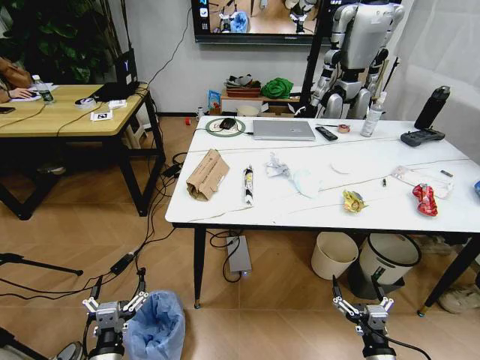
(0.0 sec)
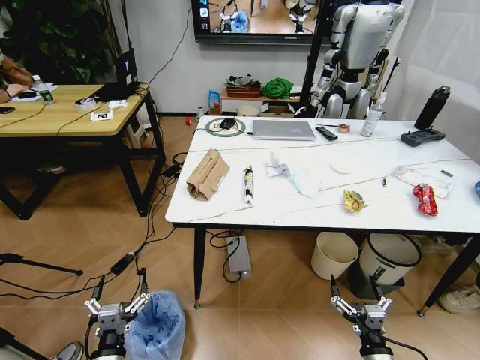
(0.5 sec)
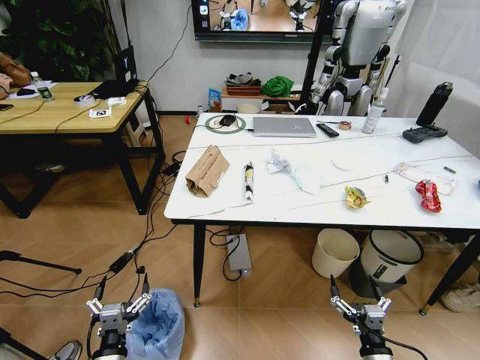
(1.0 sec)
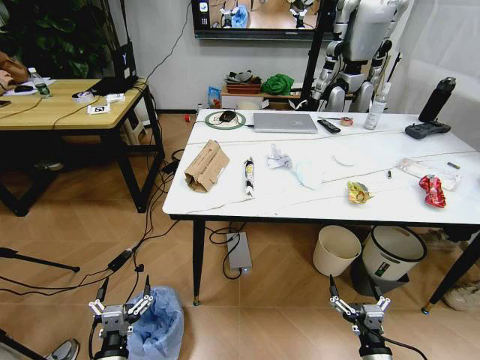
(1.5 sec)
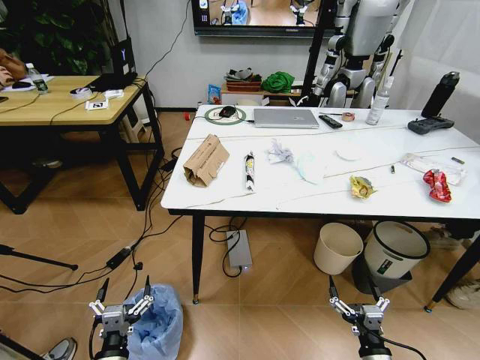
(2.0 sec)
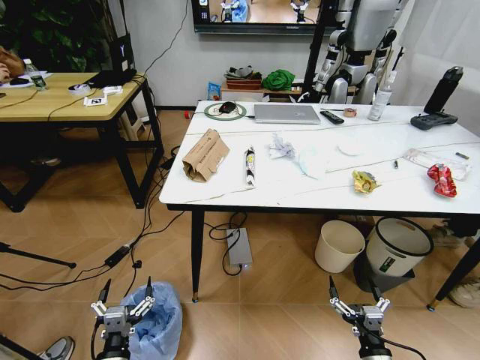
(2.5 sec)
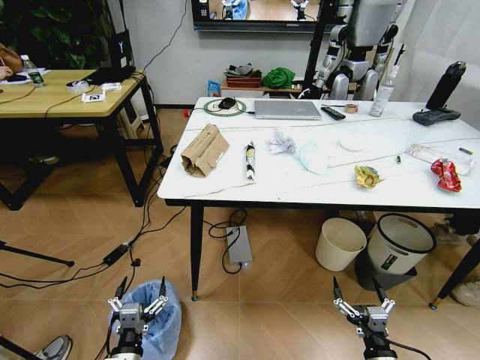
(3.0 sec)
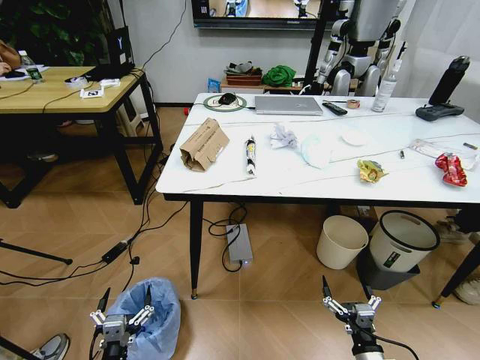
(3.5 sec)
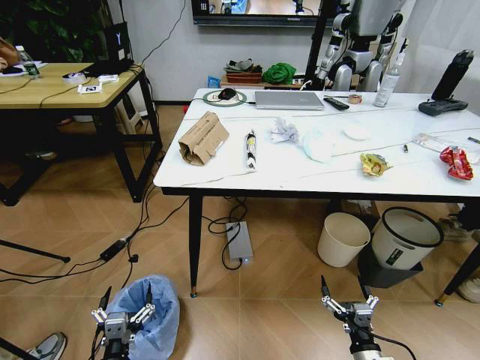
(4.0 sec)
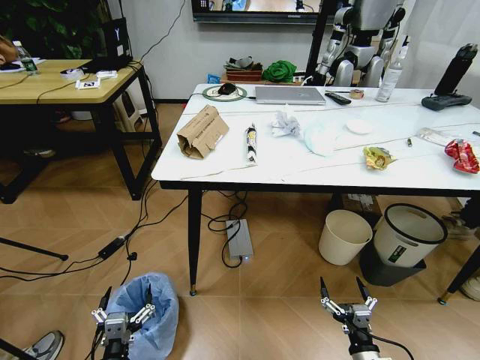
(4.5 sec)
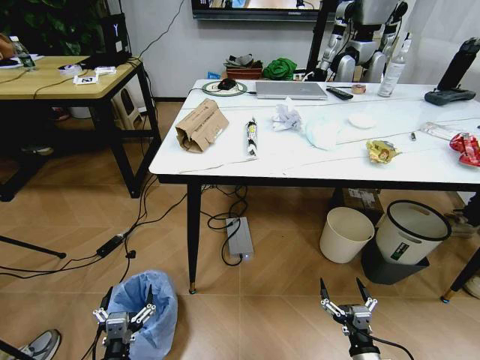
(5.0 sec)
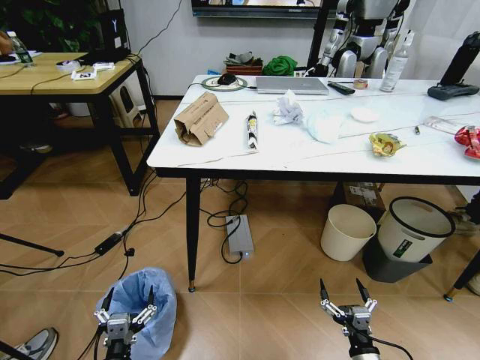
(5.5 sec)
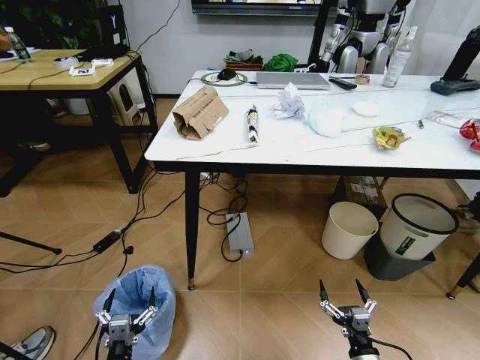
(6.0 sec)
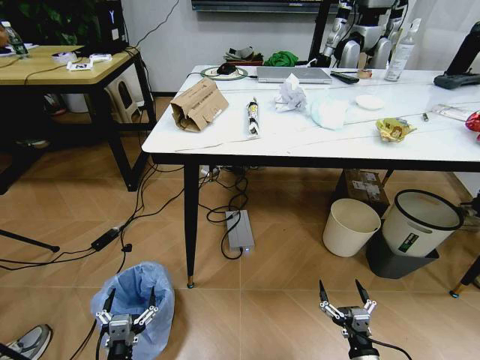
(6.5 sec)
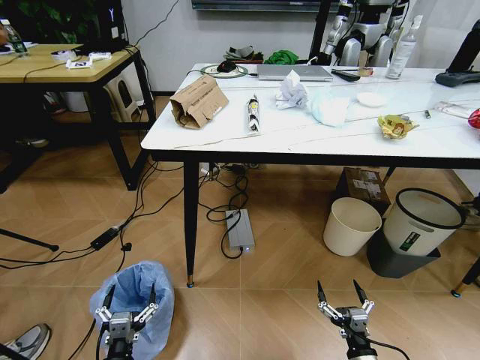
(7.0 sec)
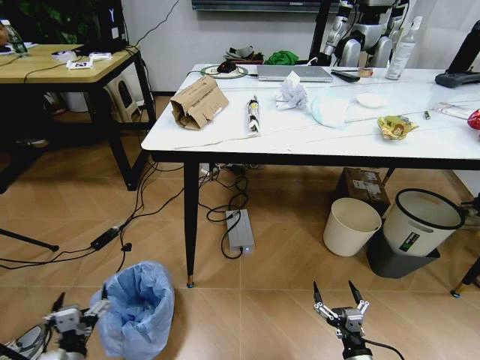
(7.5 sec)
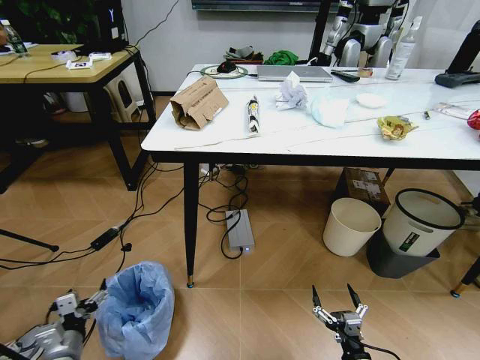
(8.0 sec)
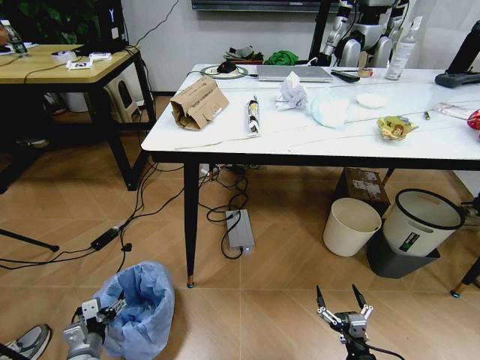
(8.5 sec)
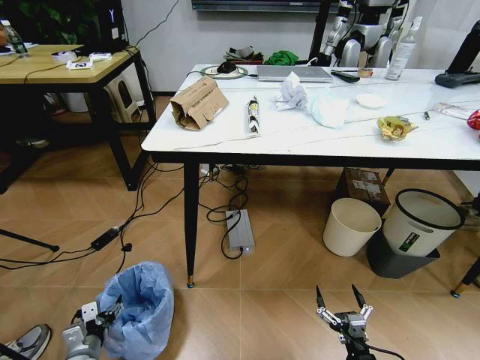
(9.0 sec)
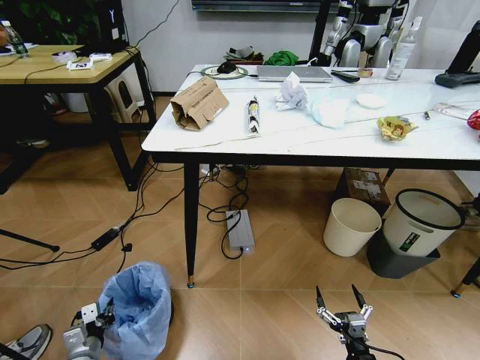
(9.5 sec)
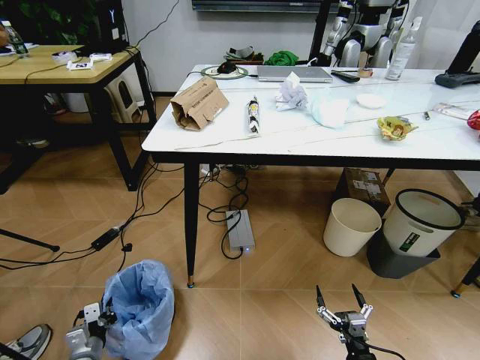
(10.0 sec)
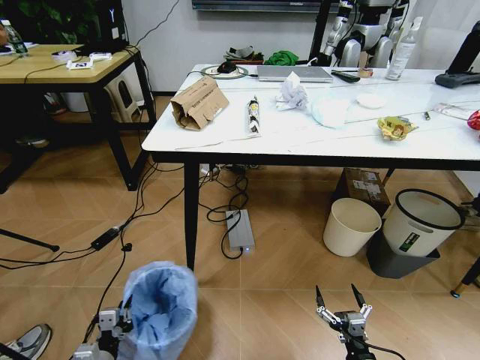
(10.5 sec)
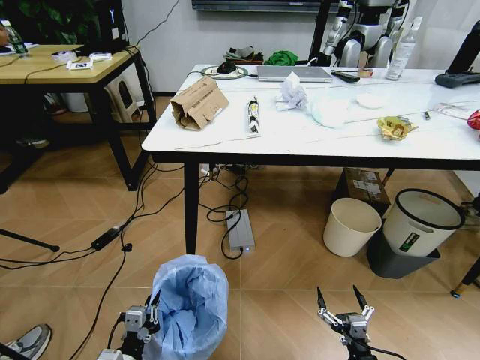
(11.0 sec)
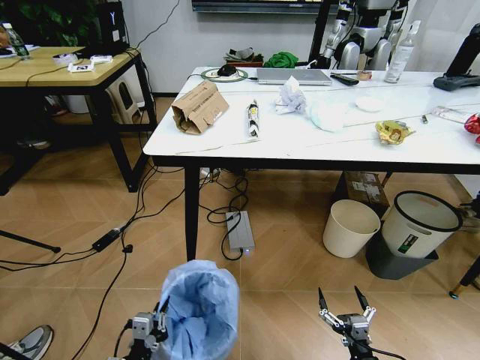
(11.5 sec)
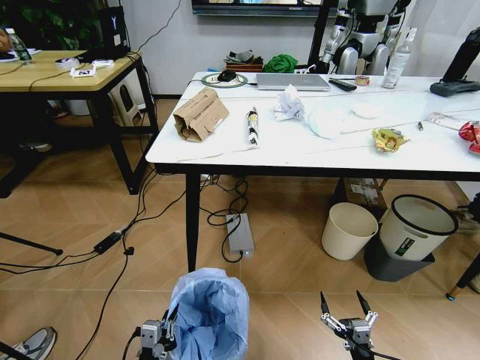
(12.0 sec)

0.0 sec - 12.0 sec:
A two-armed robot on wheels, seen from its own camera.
Task of the whole recording: Pick up the trash bin and place the trash from the table into it.
6.0 sec - 8.0 sec: The left gripper heads to the left and forward, covering about 15 cm.
8.0 sec - 10.0 sec: The left gripper shifts some 5 cm downward, and closes up.
10.0 sec - 12.0 sec: The left gripper heads to the right, backward and upward, covering roughly 20 cm.

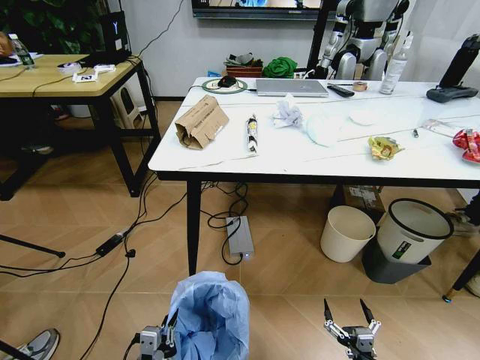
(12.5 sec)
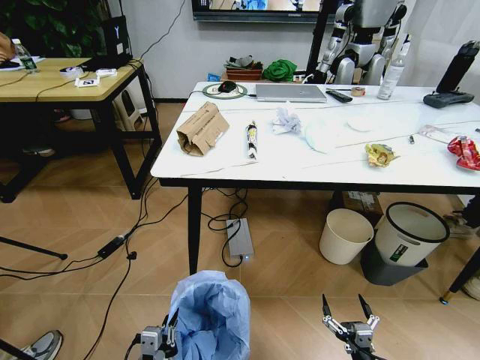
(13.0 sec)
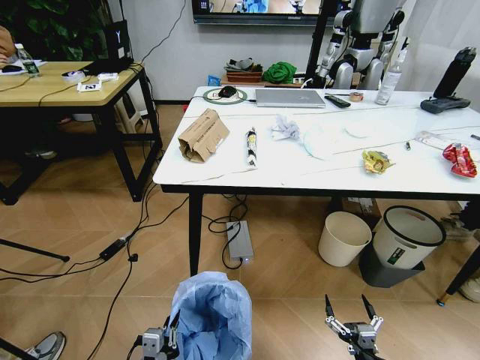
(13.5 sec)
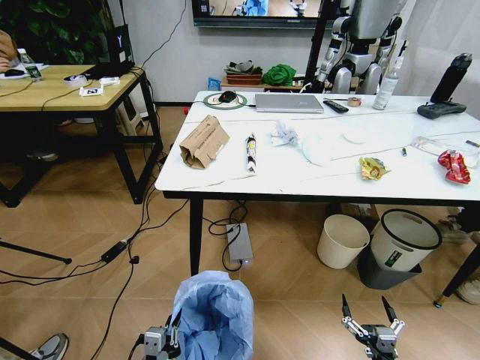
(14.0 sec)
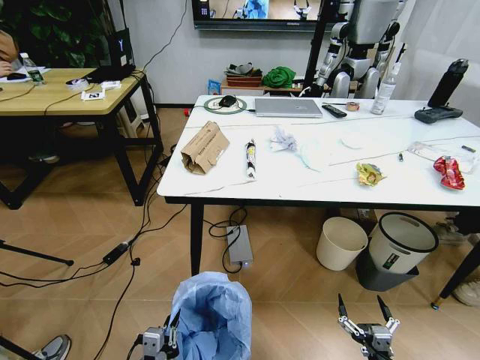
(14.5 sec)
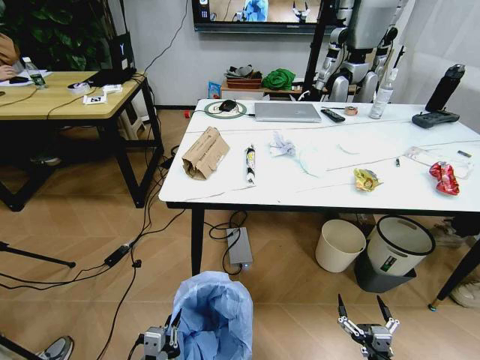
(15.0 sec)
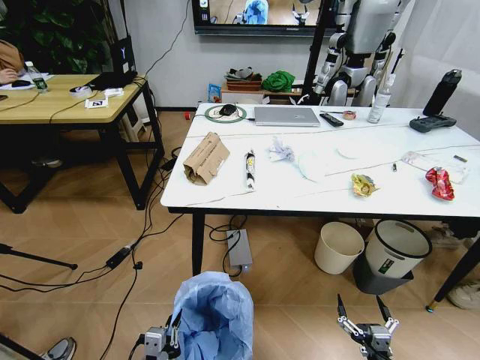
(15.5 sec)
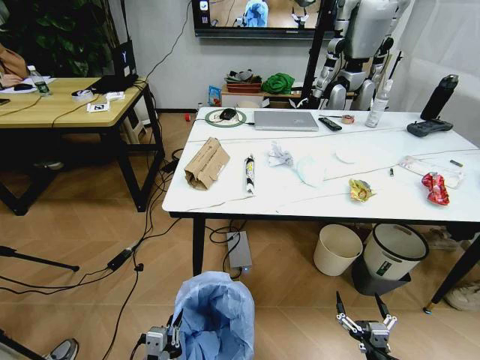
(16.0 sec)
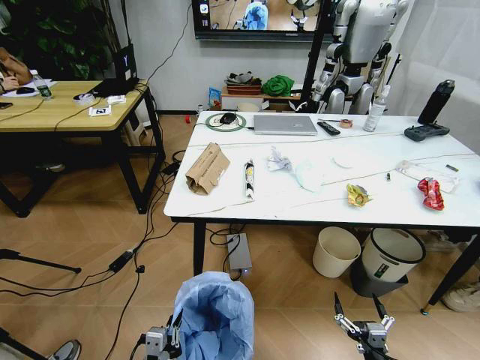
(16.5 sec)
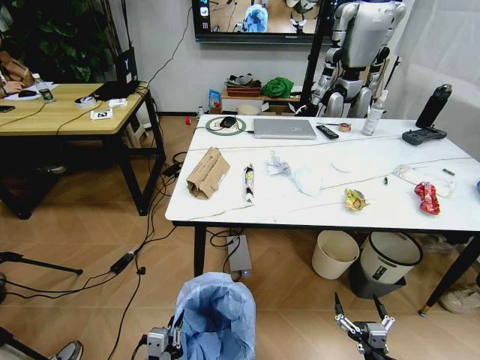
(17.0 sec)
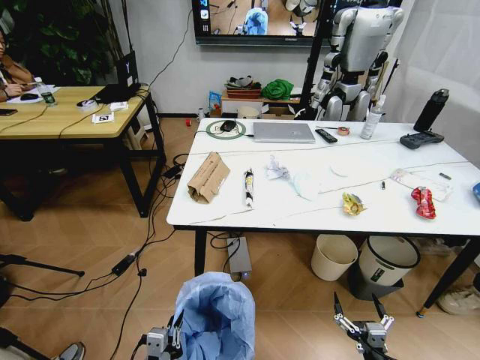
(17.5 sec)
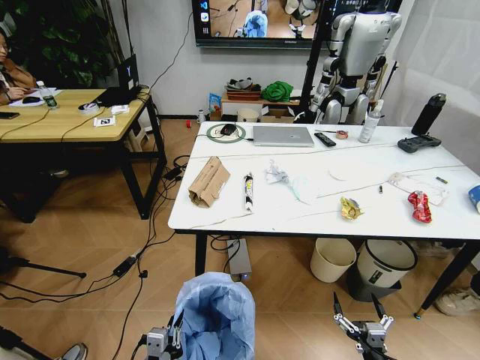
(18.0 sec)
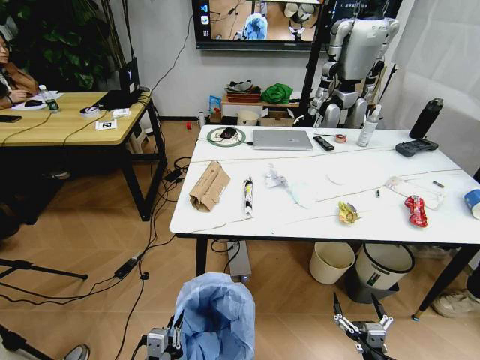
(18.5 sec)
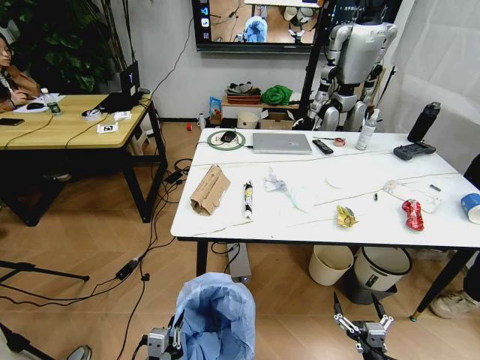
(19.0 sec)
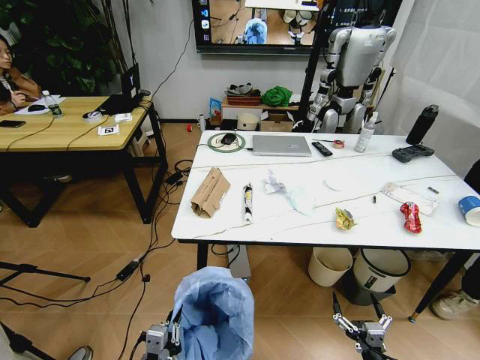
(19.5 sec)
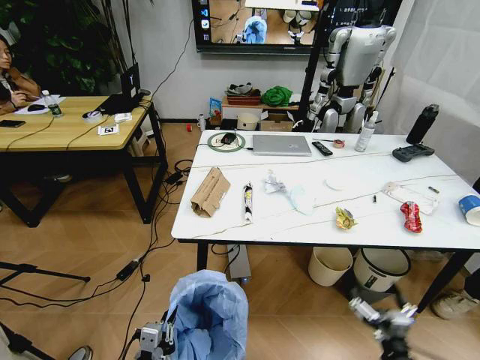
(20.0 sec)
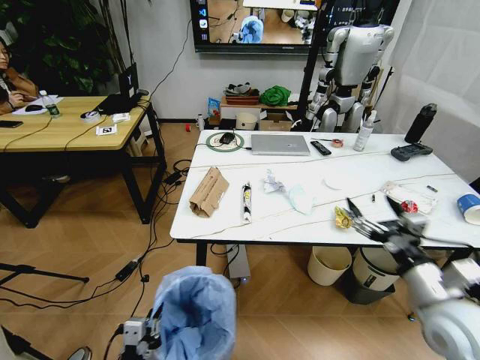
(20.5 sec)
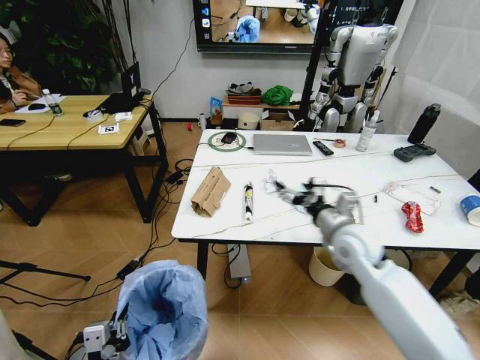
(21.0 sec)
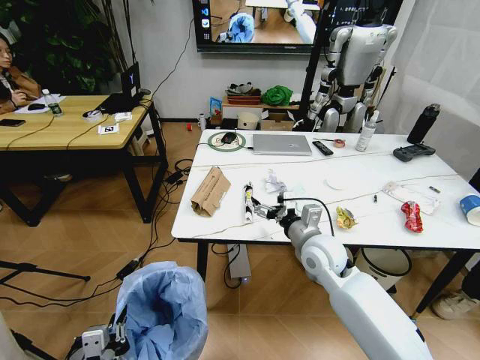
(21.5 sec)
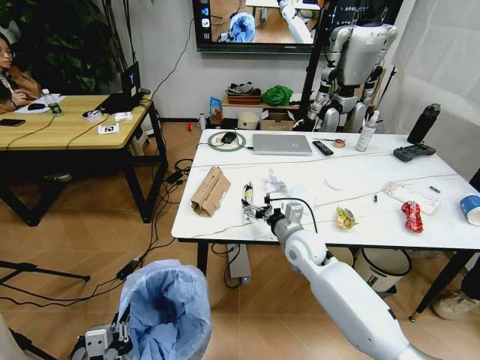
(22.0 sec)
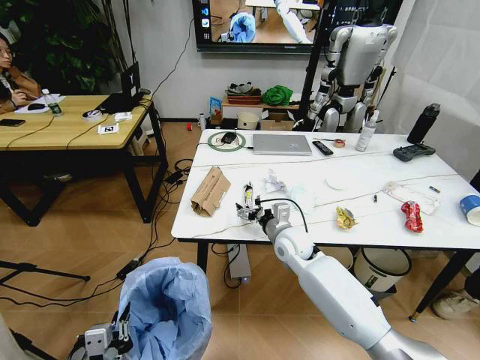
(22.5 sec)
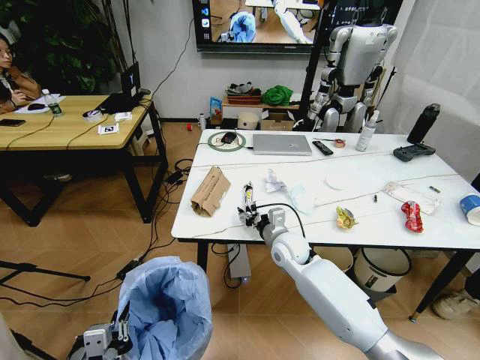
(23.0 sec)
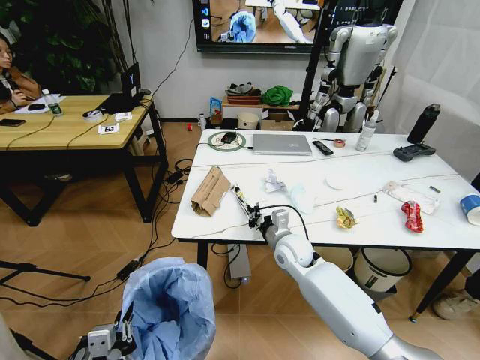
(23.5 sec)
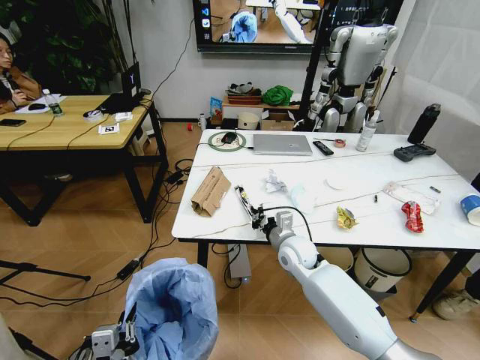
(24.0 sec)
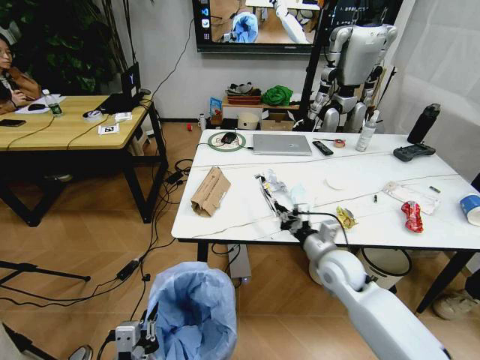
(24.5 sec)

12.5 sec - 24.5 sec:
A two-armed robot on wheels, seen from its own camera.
Task of the whole recording: Pick up the trash bin and place the trash from the table into it.
18.5 sec - 20.5 sec: The right gripper is displaced upward and forward by some 30 cm. Meanwhile the left gripper changes place by approximately 5 cm.
20.5 sec - 22.5 sec: The right gripper travels forward, to the left and downward by approximately 35 cm. The left gripper moves approximately 5 cm.
22.5 sec - 24.5 sec: The right gripper shifts about 10 cm to the right and backward, and closes.

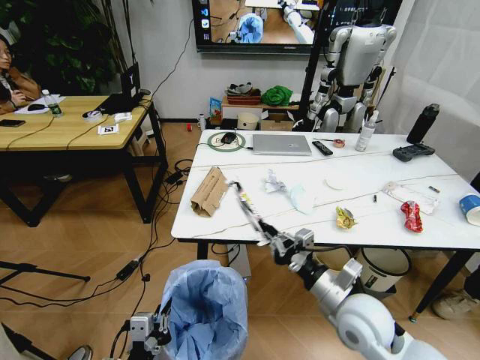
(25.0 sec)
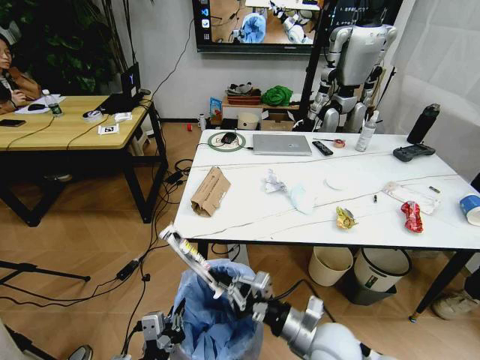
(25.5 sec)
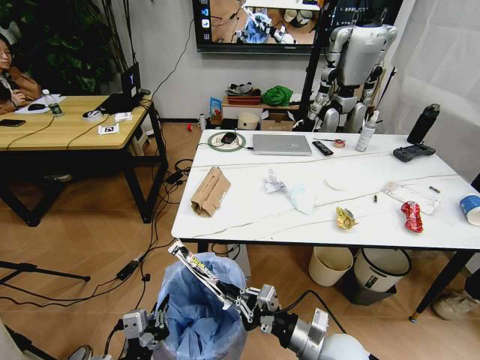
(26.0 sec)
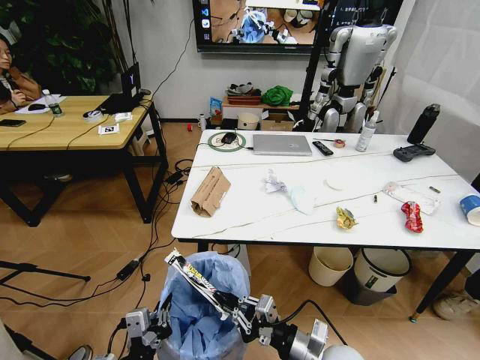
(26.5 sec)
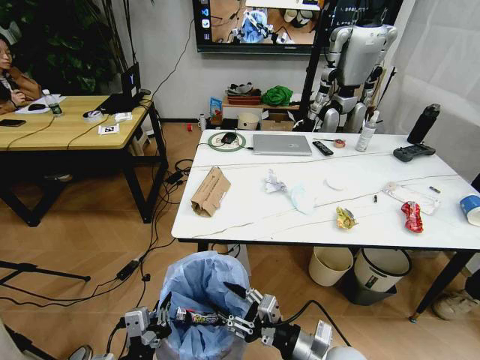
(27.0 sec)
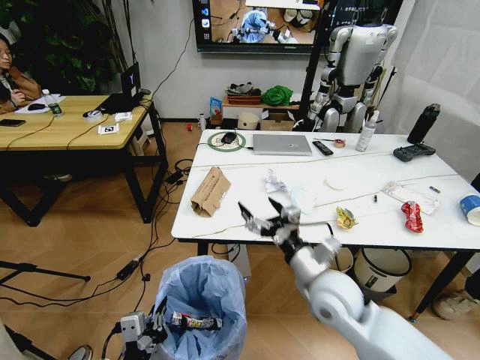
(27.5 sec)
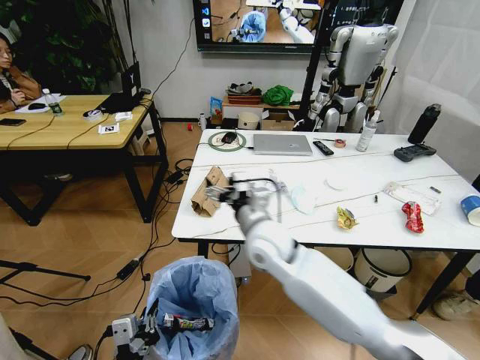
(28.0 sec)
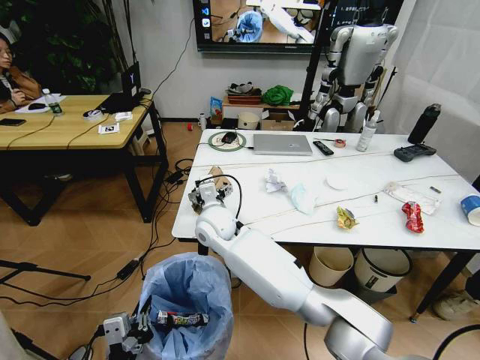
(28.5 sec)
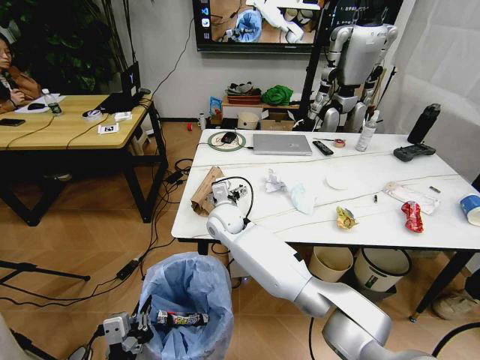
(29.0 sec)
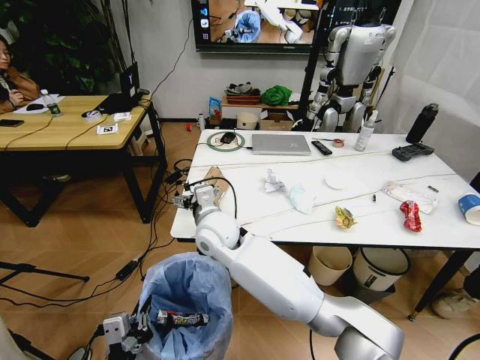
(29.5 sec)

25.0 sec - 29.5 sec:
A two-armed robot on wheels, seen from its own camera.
Task of the whole recording: Pick up the trash bin and place the trash from the table into it.
25.0 sec - 27.0 sec: The right gripper travels backward and downward by approximately 10 cm, and opens.
27.0 sec - 29.5 sec: The right gripper heads to the left, forward and upward, covering some 35 cm, and opens its fingers.
